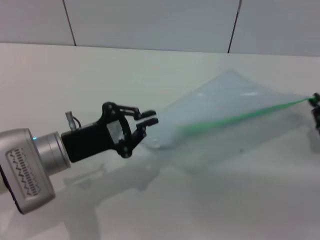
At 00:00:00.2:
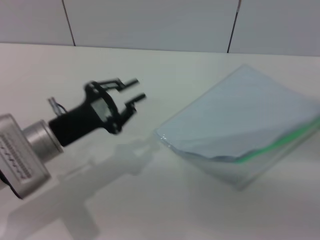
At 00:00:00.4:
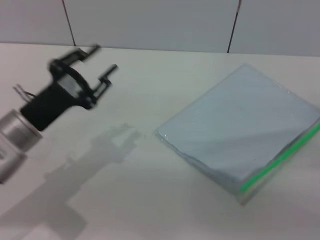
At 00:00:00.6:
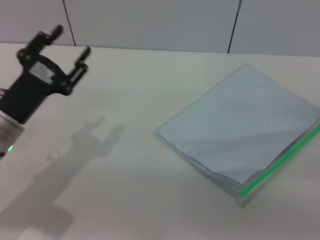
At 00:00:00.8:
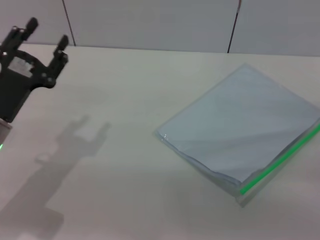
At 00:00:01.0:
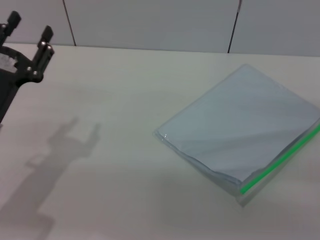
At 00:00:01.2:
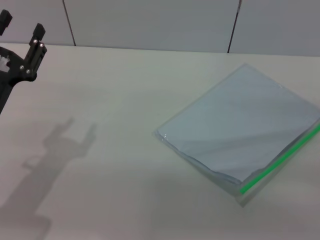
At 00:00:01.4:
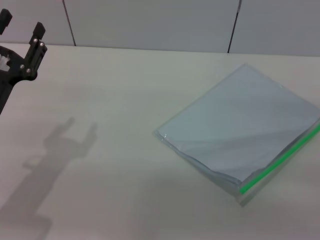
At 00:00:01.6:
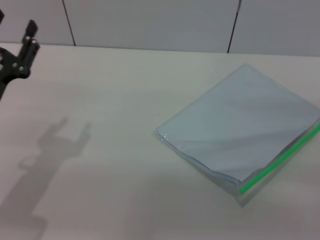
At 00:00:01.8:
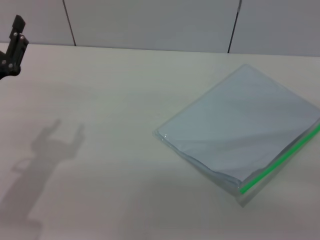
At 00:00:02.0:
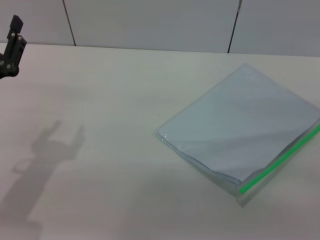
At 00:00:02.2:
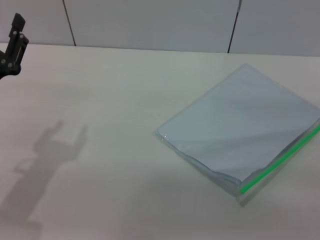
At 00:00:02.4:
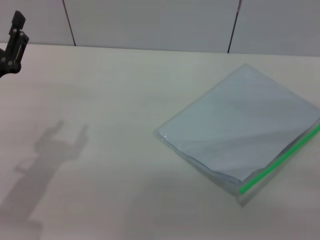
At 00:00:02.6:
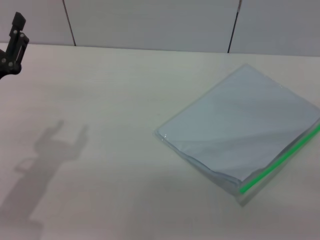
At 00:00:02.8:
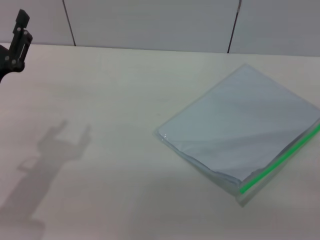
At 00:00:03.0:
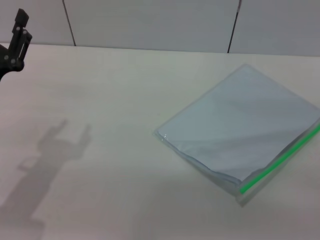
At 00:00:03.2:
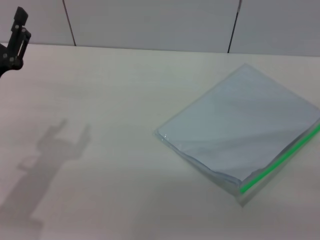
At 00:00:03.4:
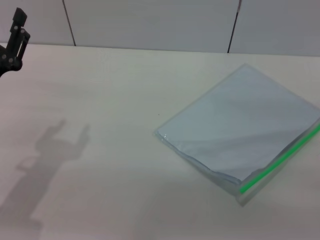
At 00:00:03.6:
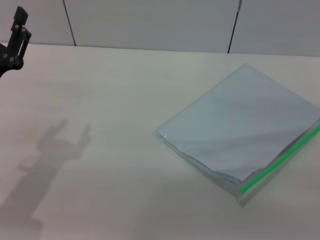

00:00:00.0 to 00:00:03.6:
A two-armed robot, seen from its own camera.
Step, 00:00:00.4 to 00:00:01.8: Place the transparent plastic bag.
00:00:00.0 to 00:00:01.8: The left gripper is displaced to the left by about 5 cm, and opens up; the right gripper heads backward, covering roughly 5 cm, and opens.

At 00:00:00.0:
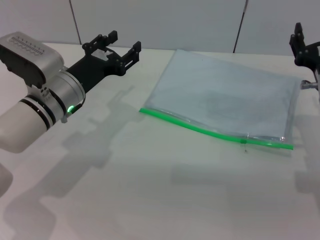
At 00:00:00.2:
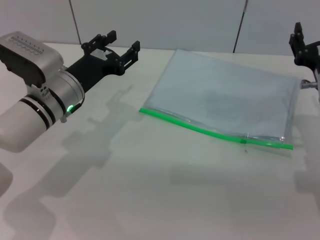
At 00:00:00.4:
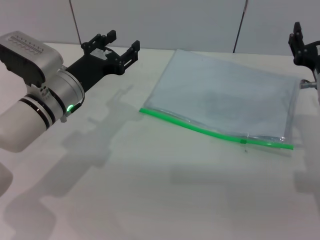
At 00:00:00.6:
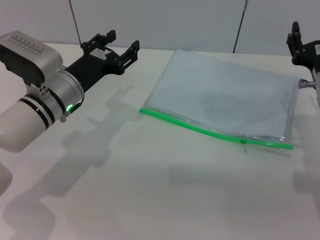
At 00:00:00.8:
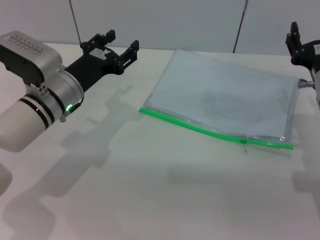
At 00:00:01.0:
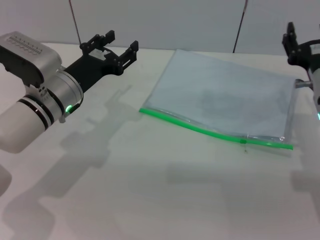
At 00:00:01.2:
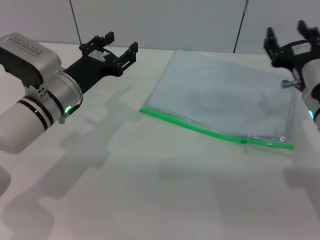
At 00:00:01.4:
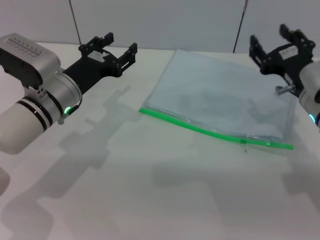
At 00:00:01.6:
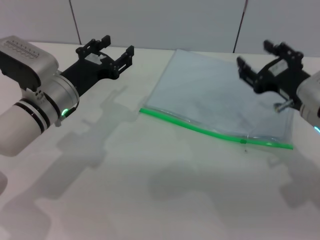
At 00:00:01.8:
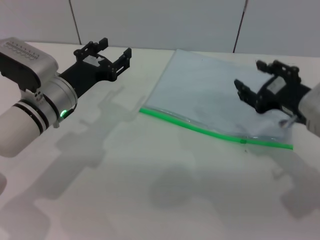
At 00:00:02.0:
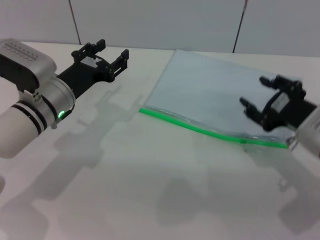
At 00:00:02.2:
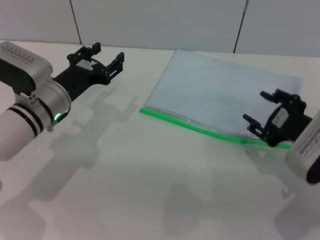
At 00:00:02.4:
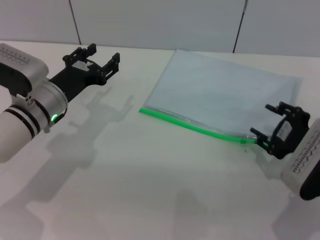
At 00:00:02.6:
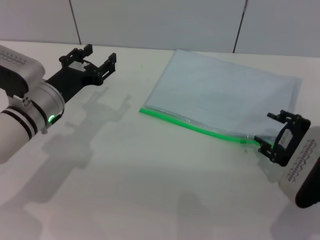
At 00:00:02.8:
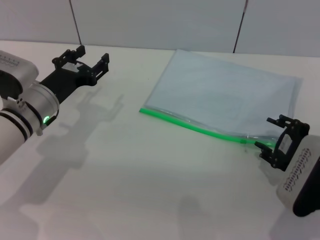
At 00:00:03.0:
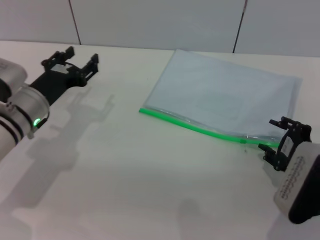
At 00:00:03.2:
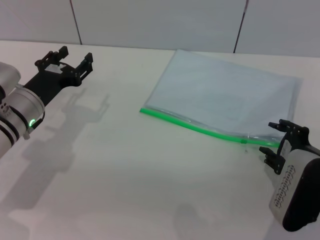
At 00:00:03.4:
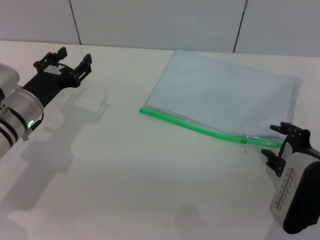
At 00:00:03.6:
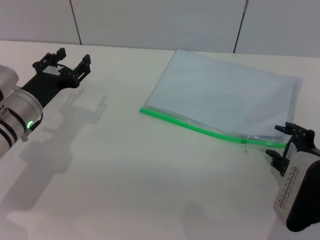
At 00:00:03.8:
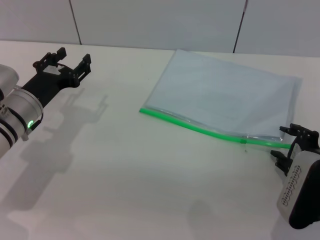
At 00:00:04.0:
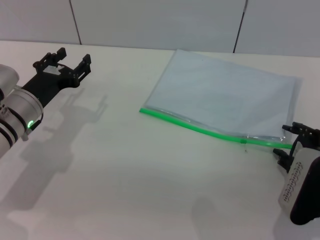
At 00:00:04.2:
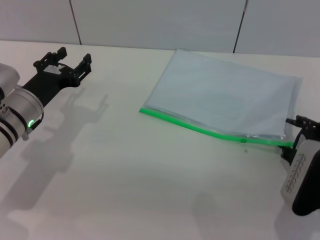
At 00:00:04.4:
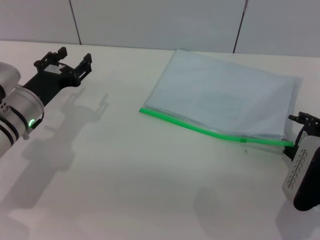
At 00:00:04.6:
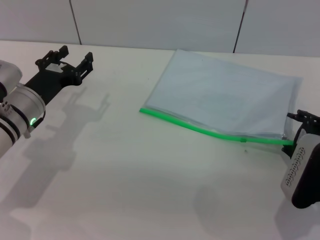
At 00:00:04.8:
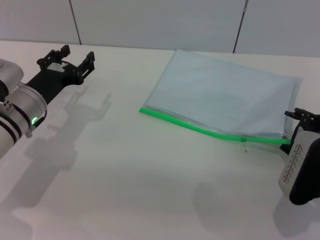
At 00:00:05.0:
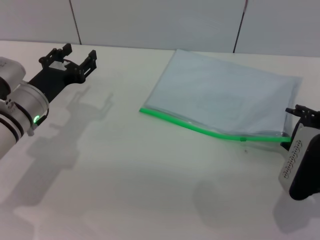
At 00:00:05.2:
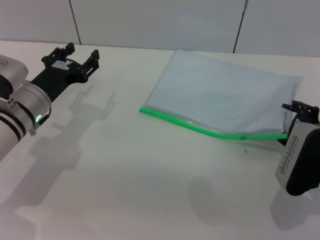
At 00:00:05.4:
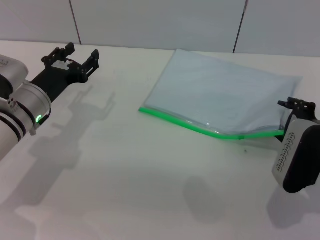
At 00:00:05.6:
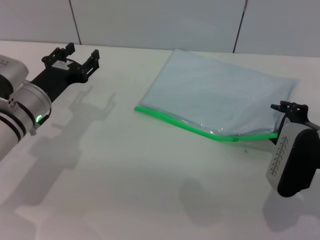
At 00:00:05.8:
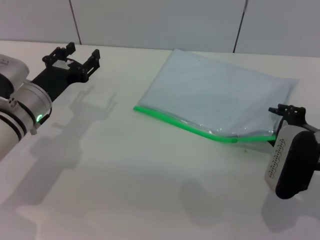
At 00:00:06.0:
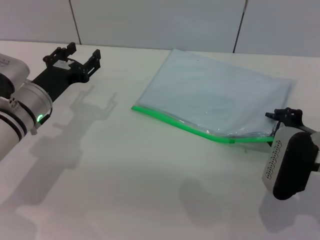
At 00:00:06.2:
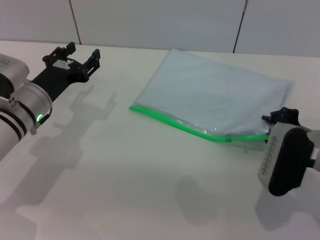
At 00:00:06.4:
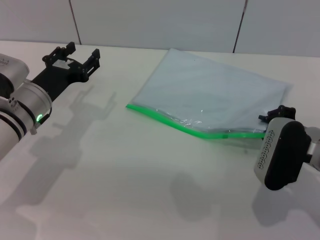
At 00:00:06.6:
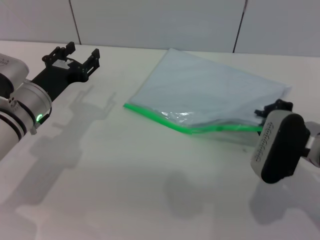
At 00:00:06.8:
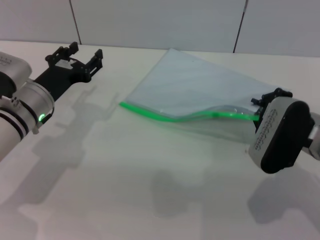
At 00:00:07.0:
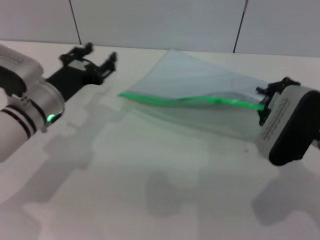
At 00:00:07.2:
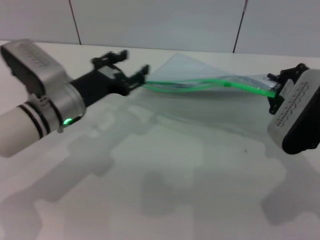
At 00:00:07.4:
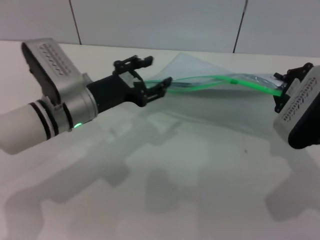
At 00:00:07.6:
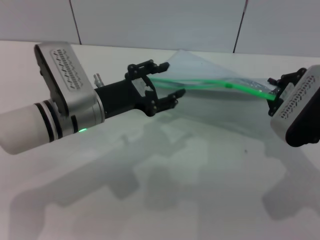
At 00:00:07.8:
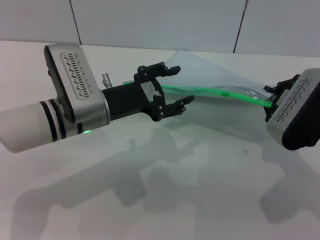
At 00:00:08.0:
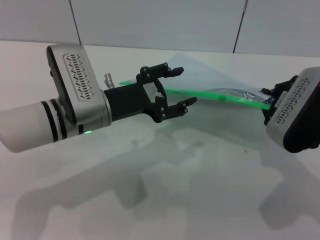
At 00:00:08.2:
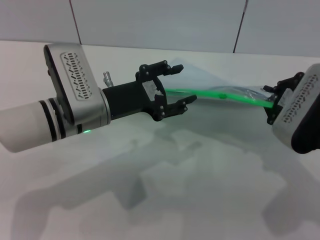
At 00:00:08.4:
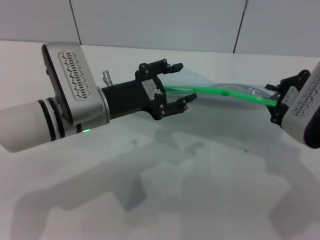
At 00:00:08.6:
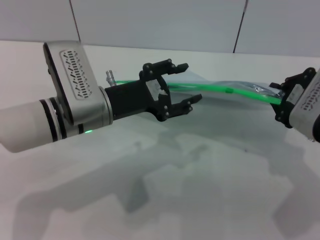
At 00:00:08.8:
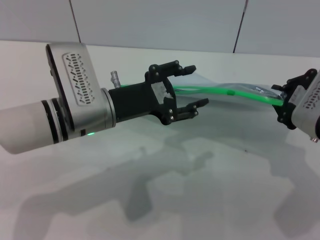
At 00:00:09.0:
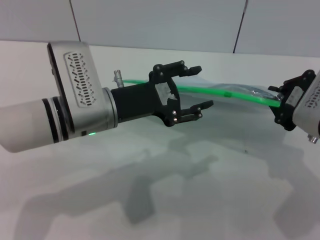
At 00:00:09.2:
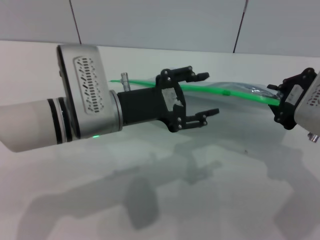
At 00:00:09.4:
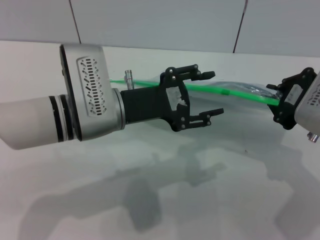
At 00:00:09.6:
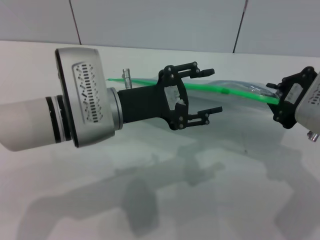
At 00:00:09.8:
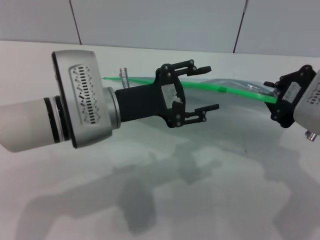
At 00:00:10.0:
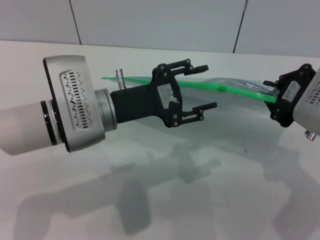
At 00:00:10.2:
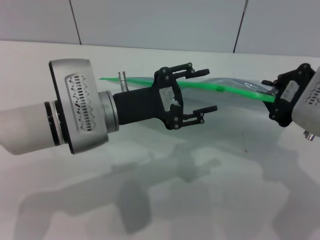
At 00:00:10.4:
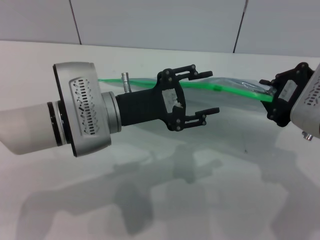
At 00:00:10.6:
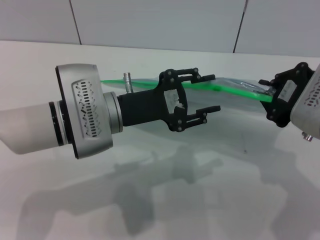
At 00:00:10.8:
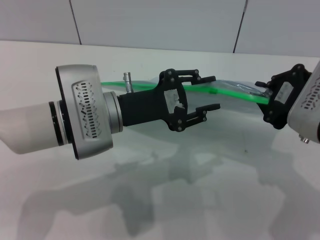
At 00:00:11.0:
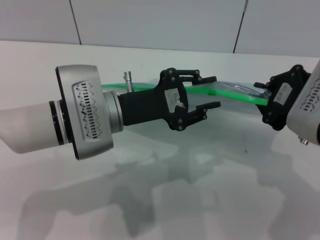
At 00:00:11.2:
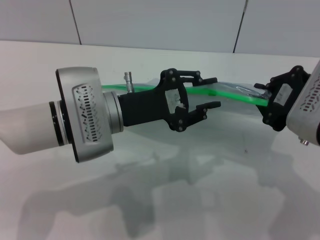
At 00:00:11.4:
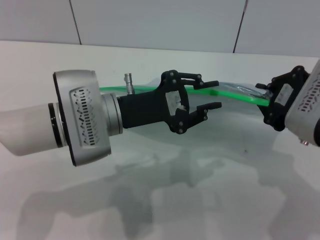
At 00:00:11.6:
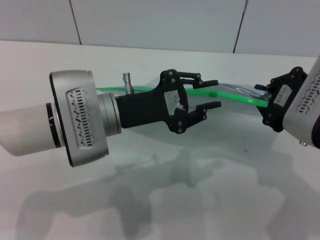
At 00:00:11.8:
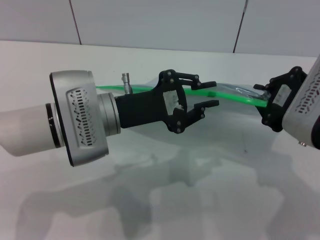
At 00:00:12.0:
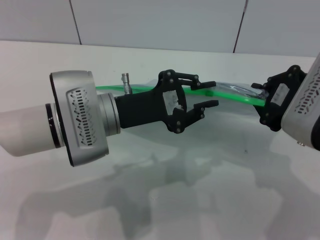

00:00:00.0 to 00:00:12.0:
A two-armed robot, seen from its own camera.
Step, 00:00:00.0 to 00:00:07.4: Pick up the transparent plastic bag with the right gripper.
00:00:01.6 to 00:00:03.0: The right gripper heads backward, covering roughly 5 cm.
00:00:03.0 to 00:00:06.0: The grippers move only a little.
00:00:06.0 to 00:00:07.6: The left gripper travels to the right by approximately 5 cm. The right gripper moves upward, about 5 cm, and closes its fingers.
00:00:07.6 to 00:00:09.0: The right gripper moves about 5 cm.
00:00:09.0 to 00:00:10.4: There are only small adjustments of the grippers.
00:00:10.4 to 00:00:12.0: The left gripper closes.

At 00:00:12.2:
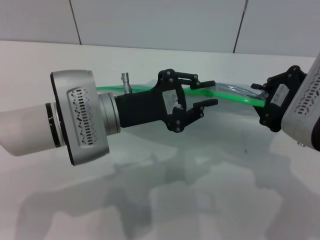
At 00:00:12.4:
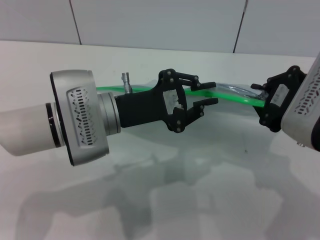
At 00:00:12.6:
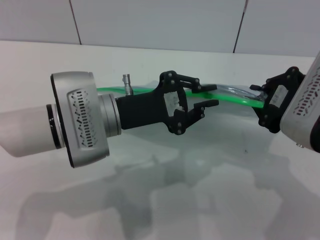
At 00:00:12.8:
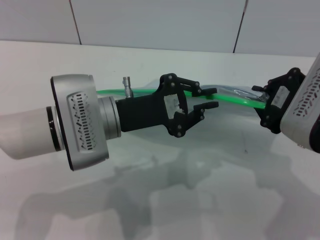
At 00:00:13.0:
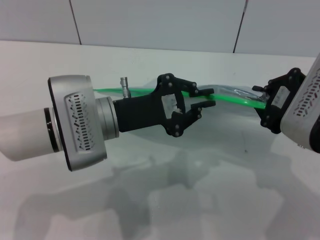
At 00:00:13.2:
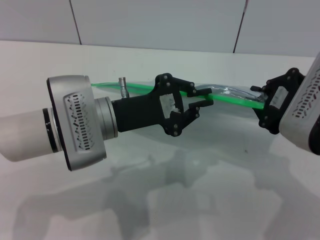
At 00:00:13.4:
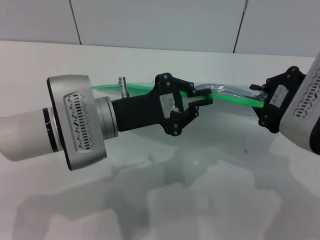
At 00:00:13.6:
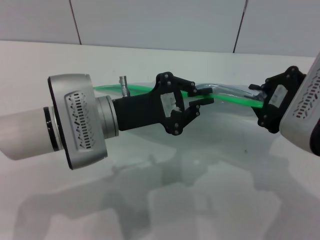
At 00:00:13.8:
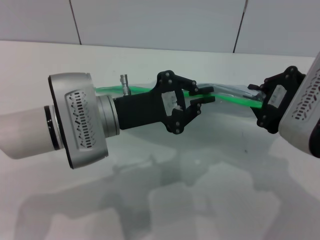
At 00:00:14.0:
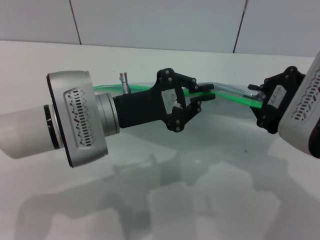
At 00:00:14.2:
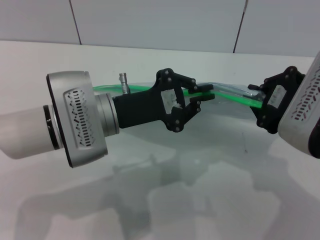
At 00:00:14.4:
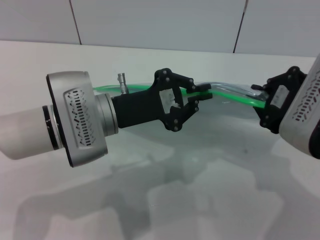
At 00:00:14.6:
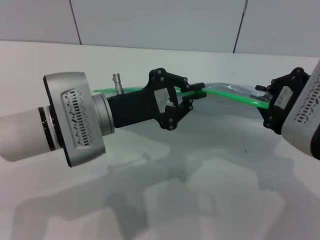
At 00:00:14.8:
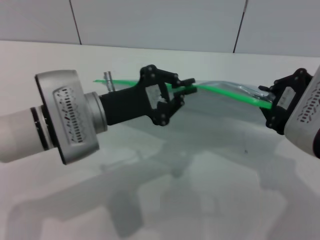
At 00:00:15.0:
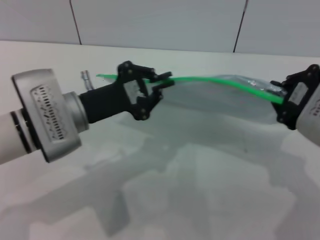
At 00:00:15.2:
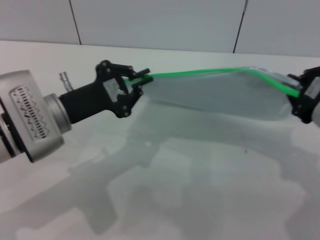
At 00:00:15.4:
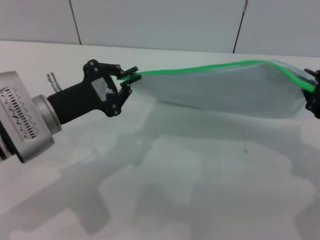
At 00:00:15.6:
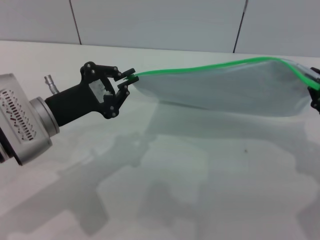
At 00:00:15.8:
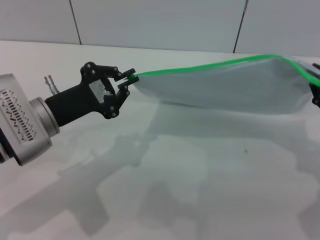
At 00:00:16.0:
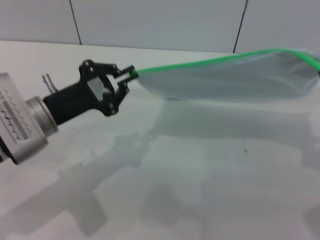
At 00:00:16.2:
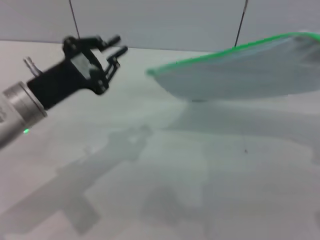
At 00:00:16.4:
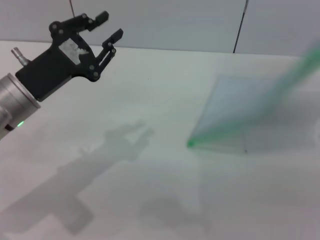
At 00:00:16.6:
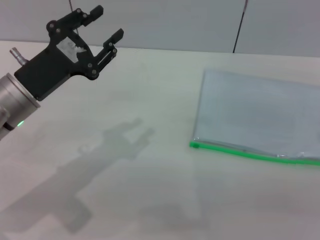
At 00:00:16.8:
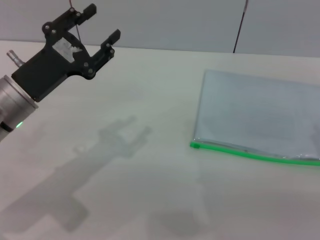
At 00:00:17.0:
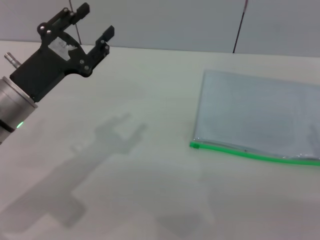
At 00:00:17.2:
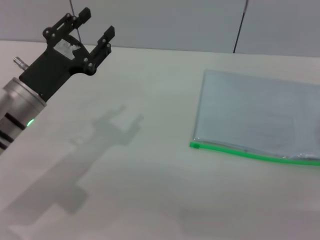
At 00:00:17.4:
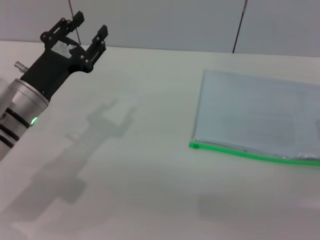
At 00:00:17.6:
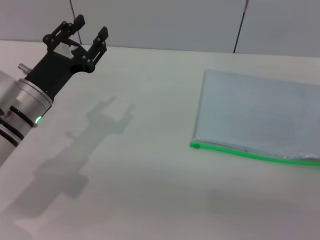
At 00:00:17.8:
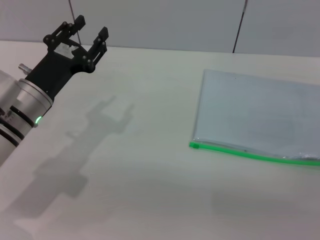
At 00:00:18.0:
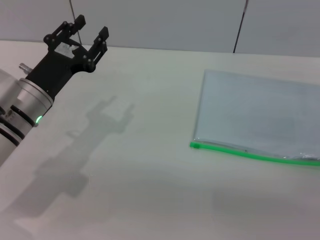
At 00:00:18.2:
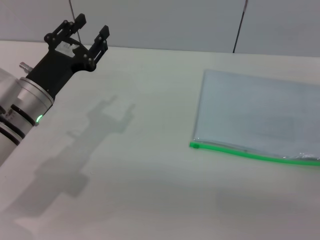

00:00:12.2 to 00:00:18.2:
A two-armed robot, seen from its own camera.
Step, 00:00:12.2 to 00:00:15.8: Pulling up the zipper on the transparent plastic bag with the left gripper to close it.
Step, 00:00:16.2 to 00:00:16.8: Place the transparent plastic bag.
00:00:12.2 to 00:00:13.8: Neither gripper changes place.
00:00:13.8 to 00:00:15.2: The left gripper goes approximately 5 cm to the left.
00:00:15.2 to 00:00:16.6: The left gripper opens up.
00:00:16.6 to 00:00:18.2: The left gripper shifts by about 5 cm, and opens its fingers.
